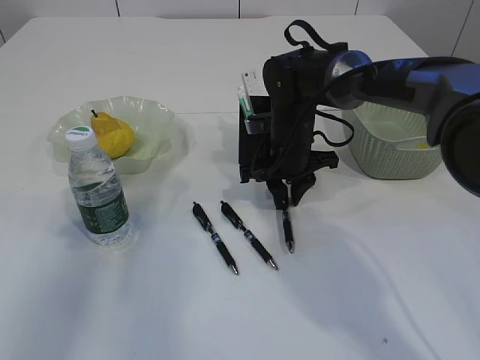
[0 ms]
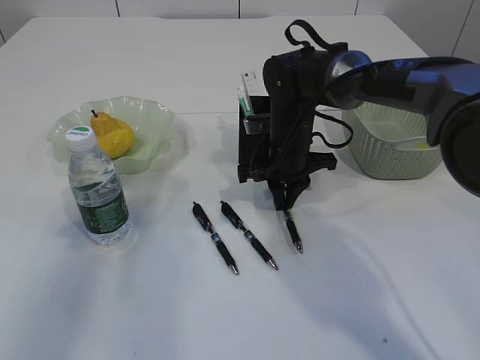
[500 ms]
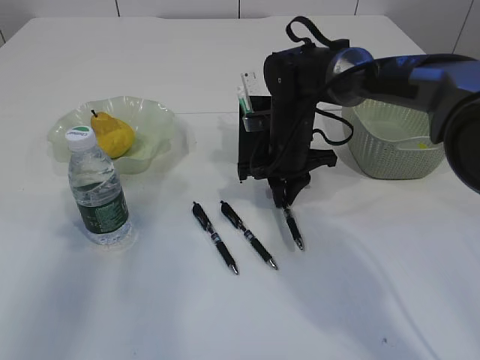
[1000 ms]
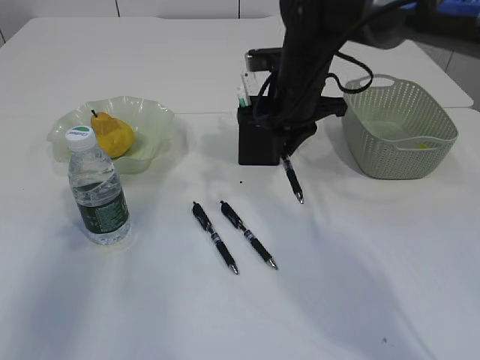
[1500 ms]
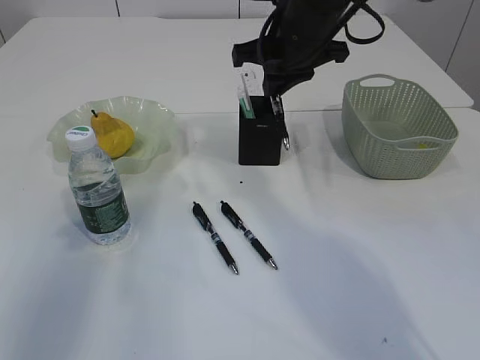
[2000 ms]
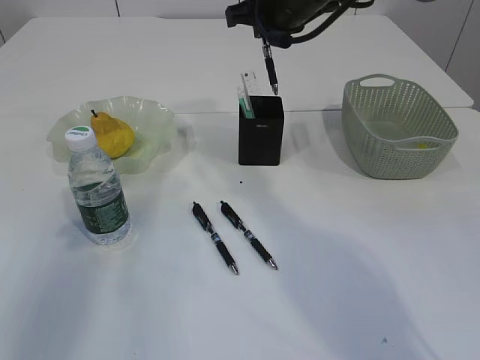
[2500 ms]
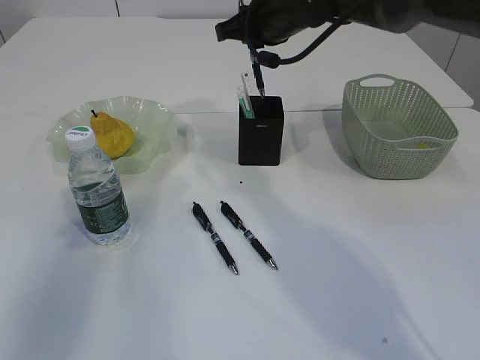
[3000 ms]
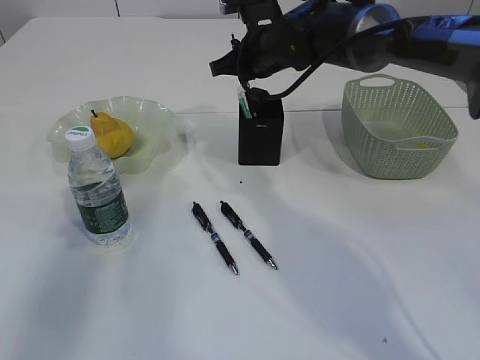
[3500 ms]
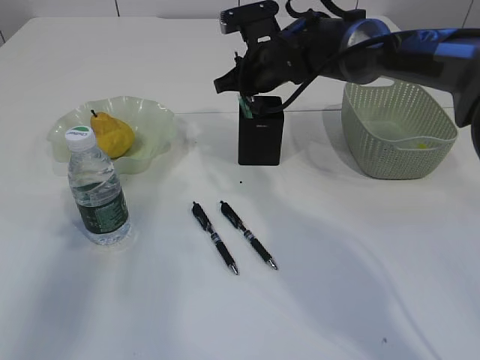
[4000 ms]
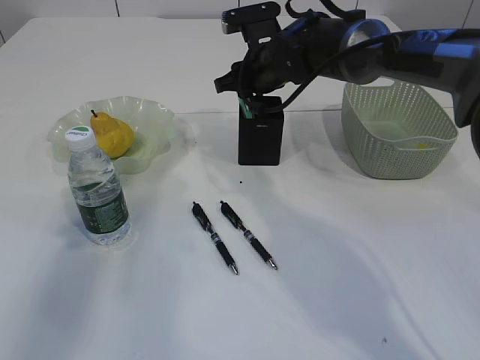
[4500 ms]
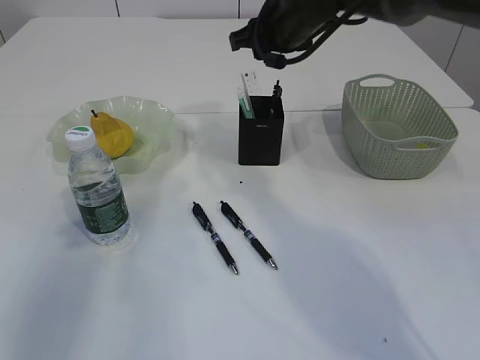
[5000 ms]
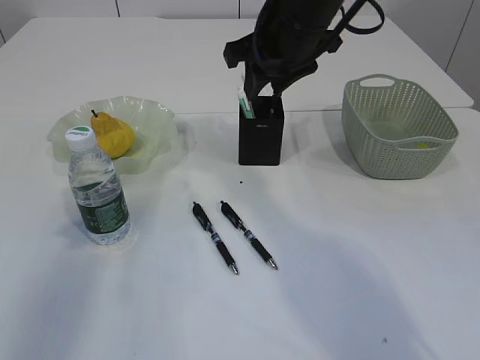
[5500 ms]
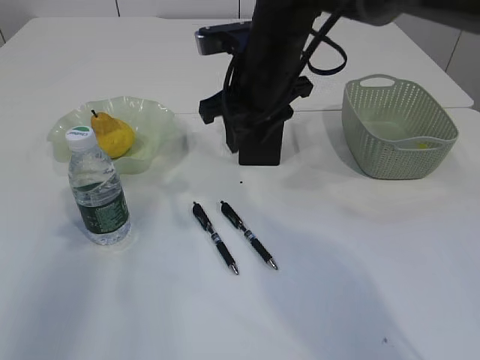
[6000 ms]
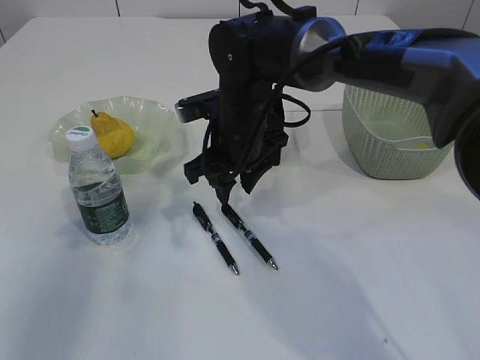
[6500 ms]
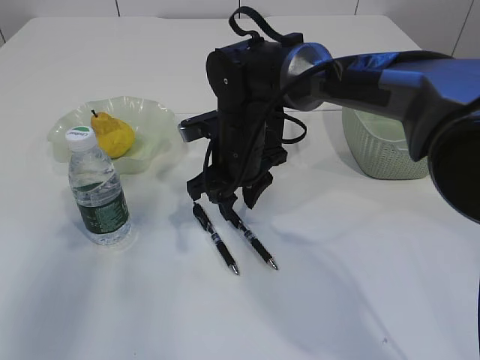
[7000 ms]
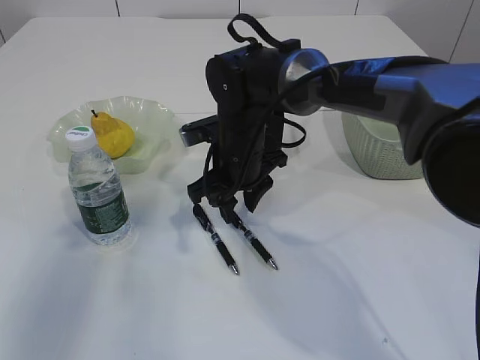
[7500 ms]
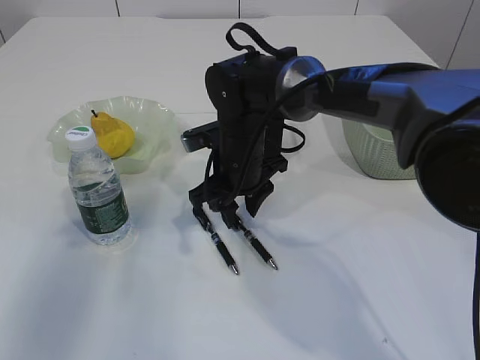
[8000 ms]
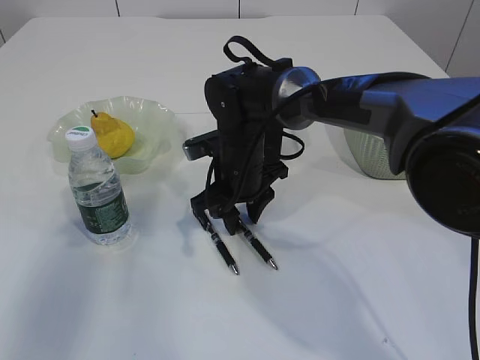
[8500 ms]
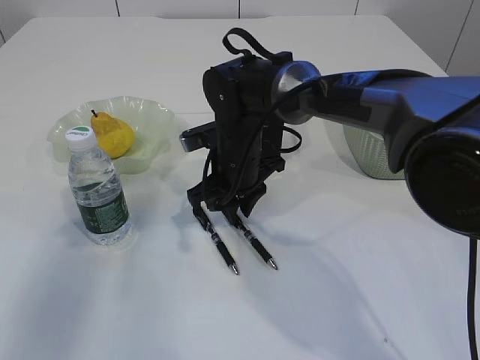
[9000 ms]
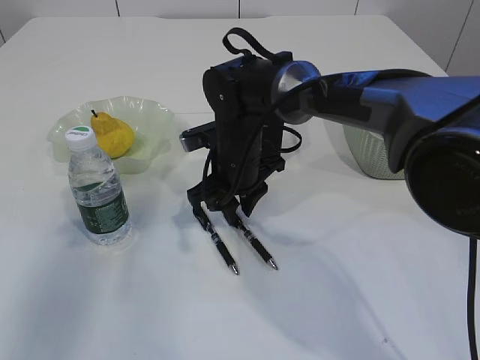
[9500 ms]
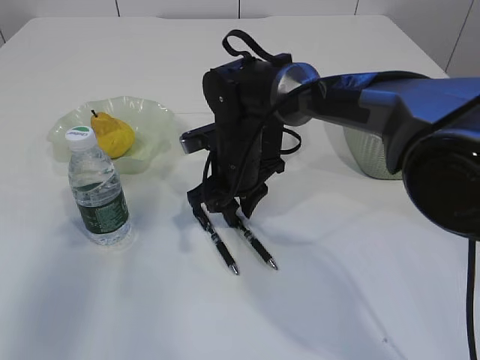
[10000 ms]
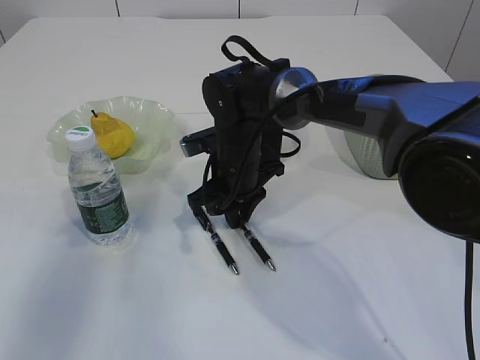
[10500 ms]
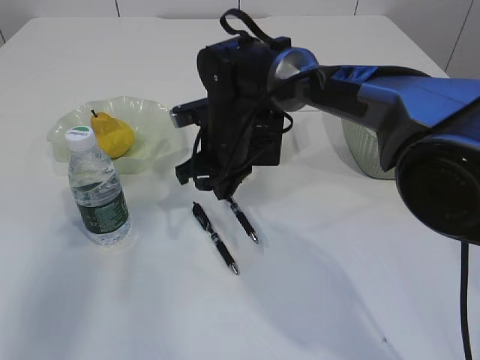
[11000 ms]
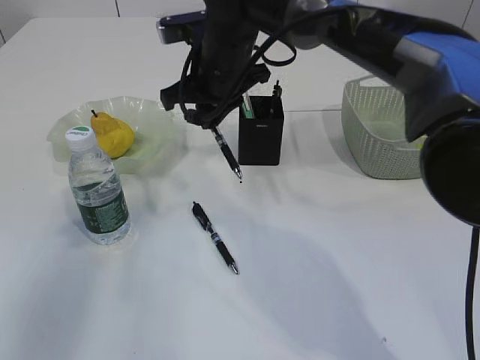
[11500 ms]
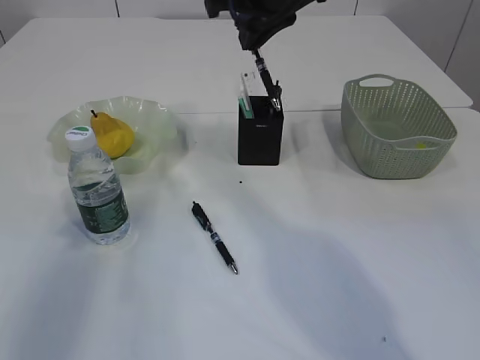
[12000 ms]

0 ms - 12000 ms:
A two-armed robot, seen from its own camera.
Step, 1500 ms - 4500 ms: Place the pen into the pen holder.
Step, 5000 ms - 11000 ms: Pick up the pen with right arm.
0 ms - 2000 ms: The right gripper shifts about 15 cm upward.
2000 ms - 4000 ms: The right gripper moves downward and forward, some 10 cm.
4000 ms - 6000 ms: The right gripper goes roughly 10 cm backward and upward, and opens up.
6000 ms - 8000 ms: The right gripper goes roughly 10 cm downward.
8000 ms - 10000 ms: Both grippers stay about where they are.
10000 ms - 12000 ms: The right gripper heads upward, covering about 20 cm.

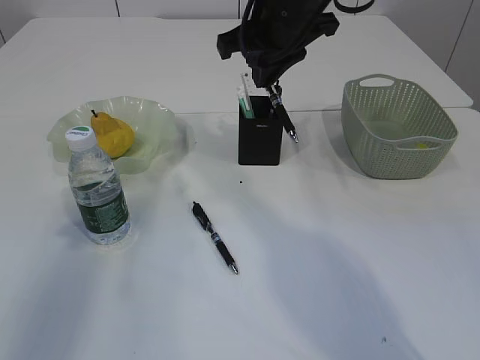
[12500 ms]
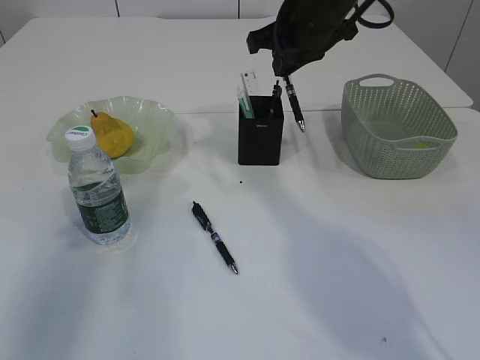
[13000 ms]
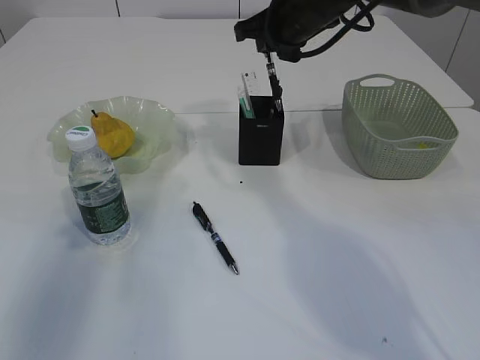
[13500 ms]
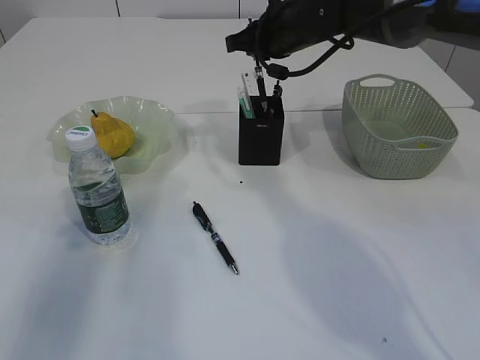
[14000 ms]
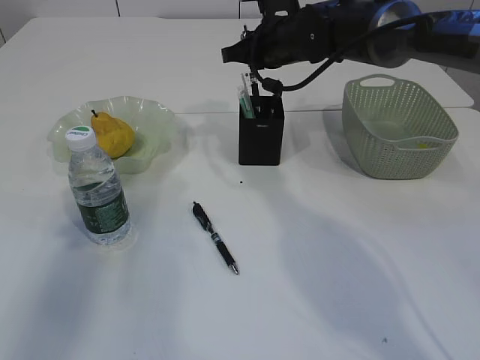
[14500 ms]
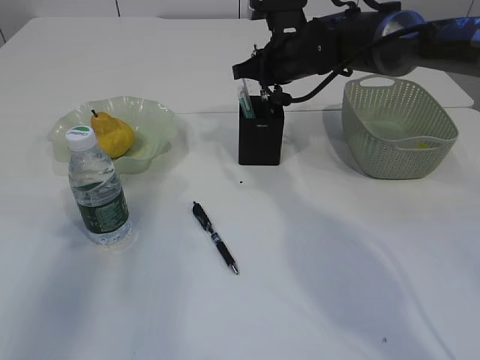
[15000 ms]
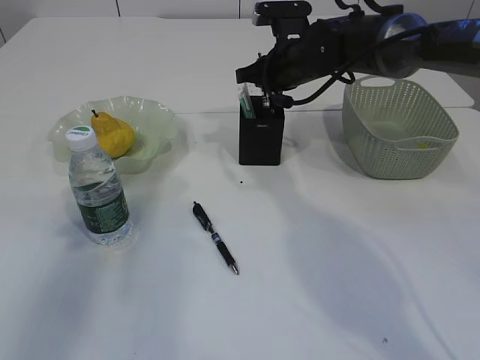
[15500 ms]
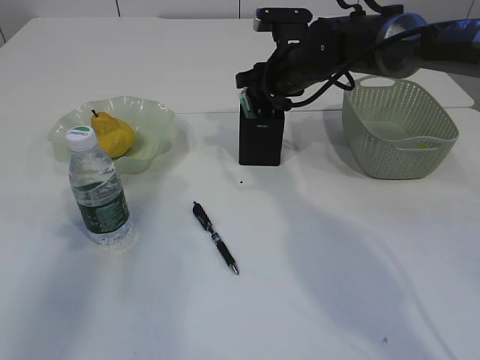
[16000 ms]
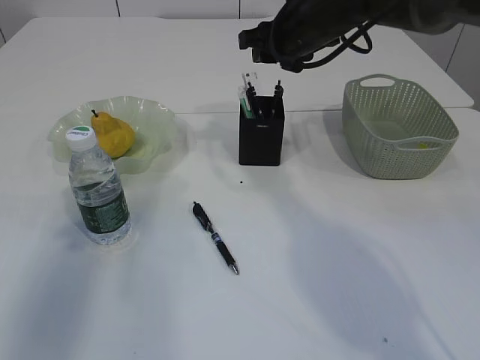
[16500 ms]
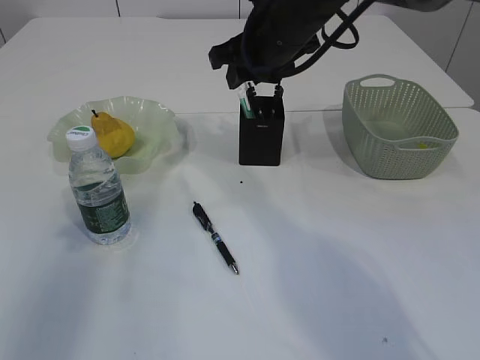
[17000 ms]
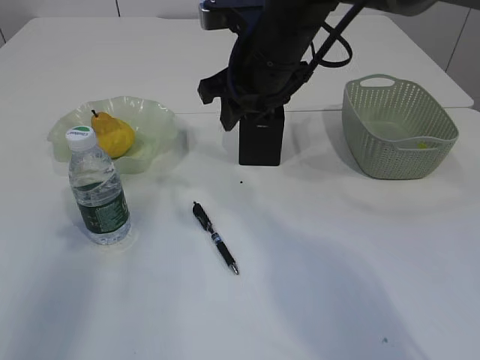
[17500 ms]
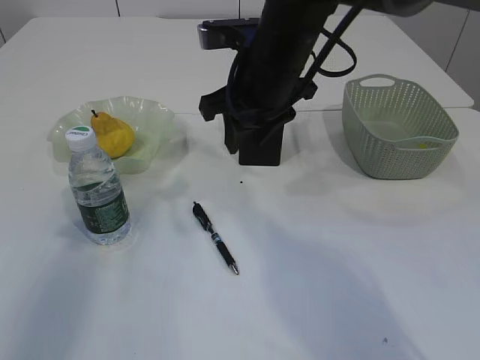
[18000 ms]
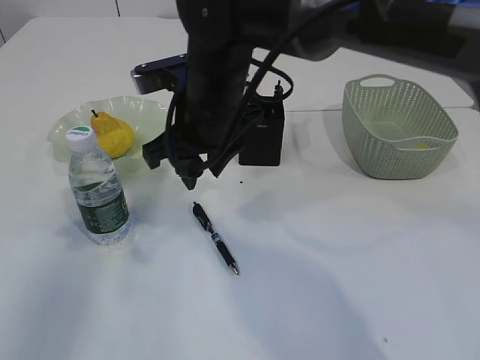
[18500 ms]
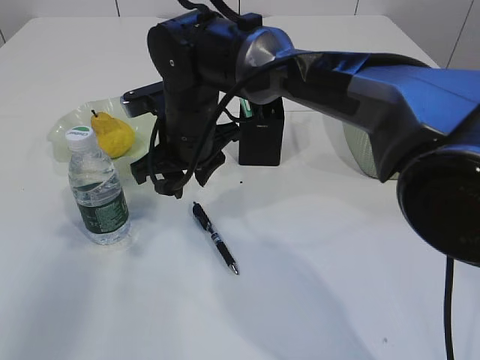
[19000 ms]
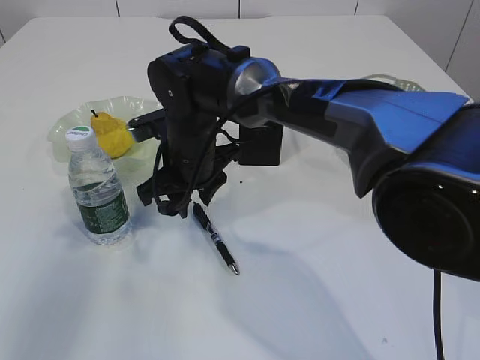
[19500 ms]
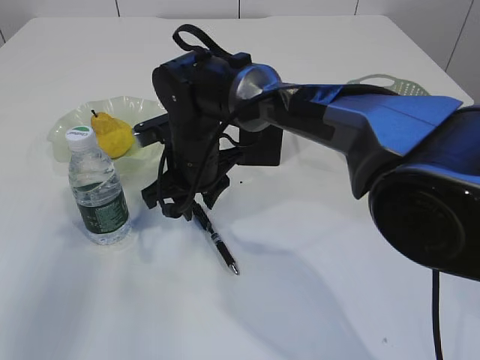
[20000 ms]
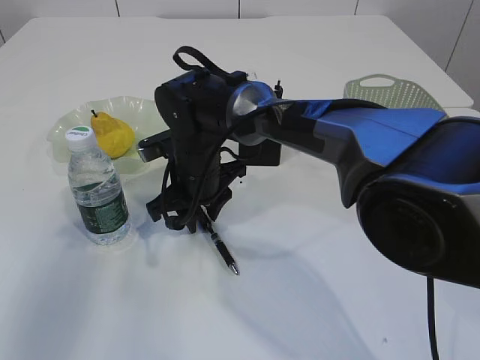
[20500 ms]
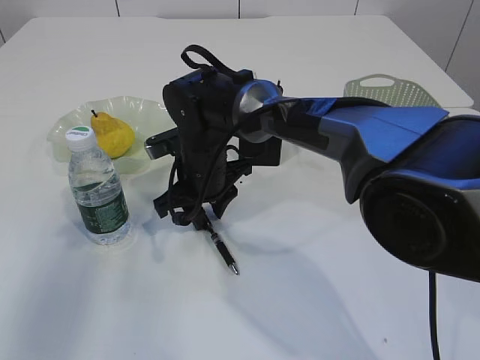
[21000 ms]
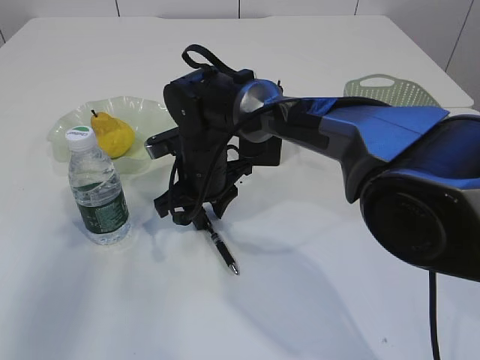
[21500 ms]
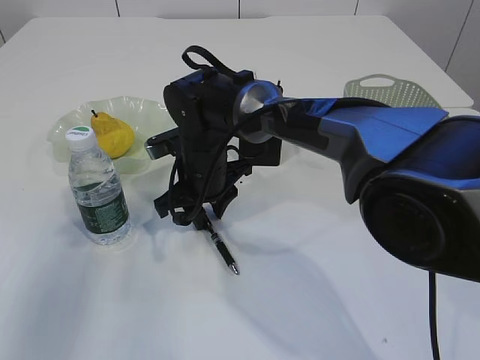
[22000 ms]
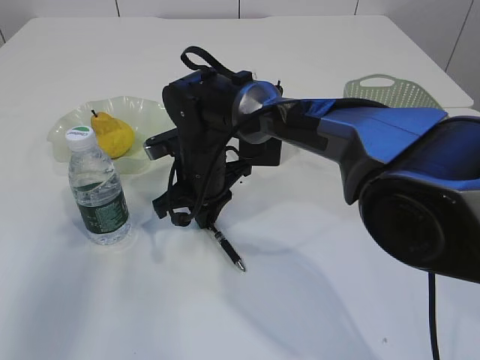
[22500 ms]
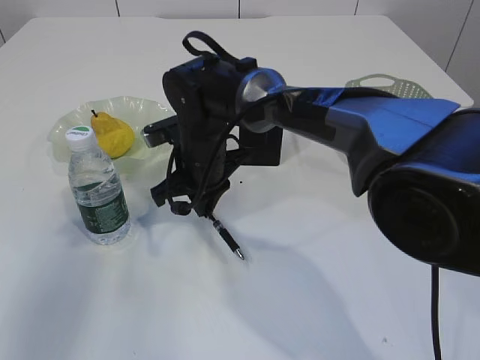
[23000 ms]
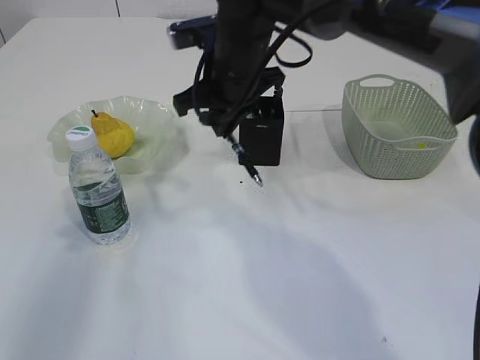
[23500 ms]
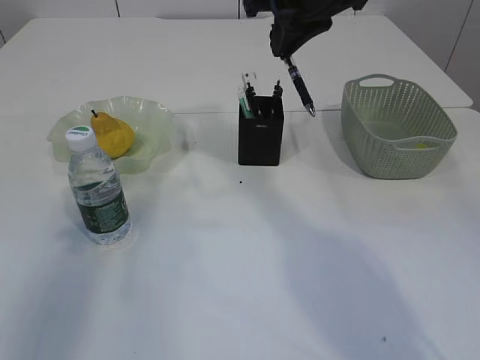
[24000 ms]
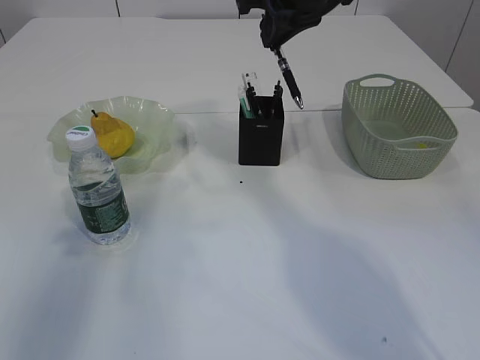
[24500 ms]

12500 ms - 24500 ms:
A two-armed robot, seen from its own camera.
Step, 12500 ms - 16500 ms: Place the pen into the pen holder.
Step, 17000 ms - 23000 ms: Pick up the pen with right arm.
12500 ms - 14500 ms: The right gripper heads forward and downward, covering some 10 cm.
14500 ms - 16500 ms: The right gripper opens.
16500 ms - 18500 ms: The right gripper is displaced backward and to the left by roughly 15 cm.
18500 ms - 20500 ms: The right gripper goes about 10 cm downward.
20500 ms - 22500 ms: Both grippers stay about where they are.
22500 ms - 24500 ms: The right gripper moves upward and to the right, some 25 cm.

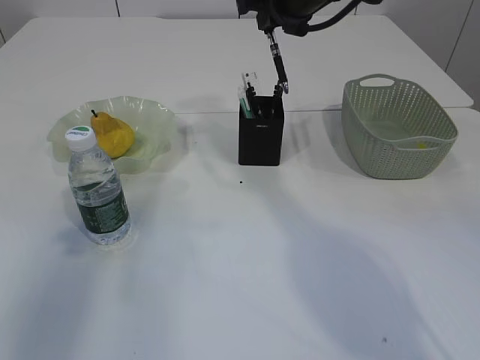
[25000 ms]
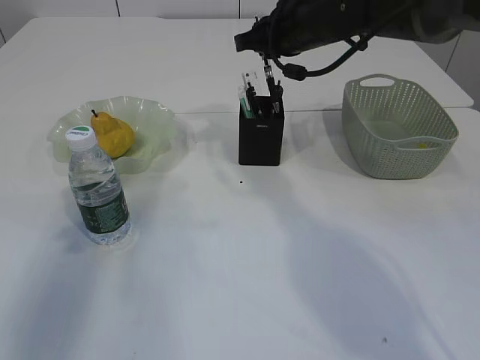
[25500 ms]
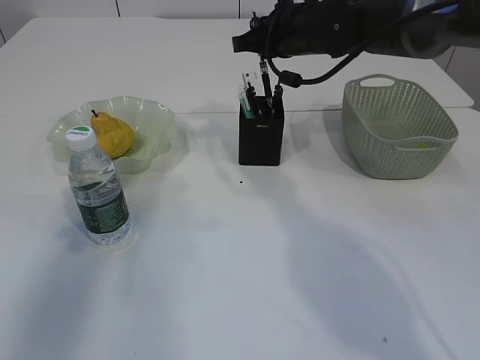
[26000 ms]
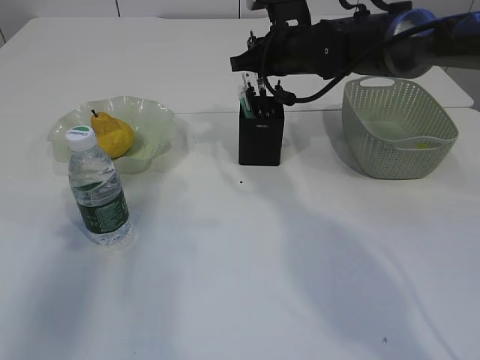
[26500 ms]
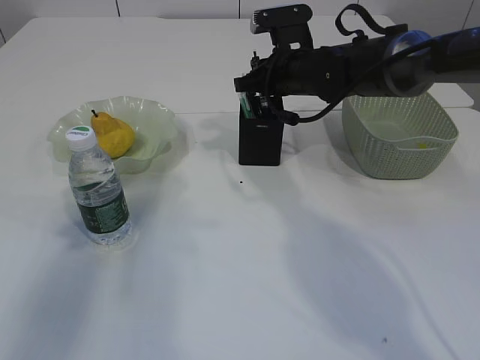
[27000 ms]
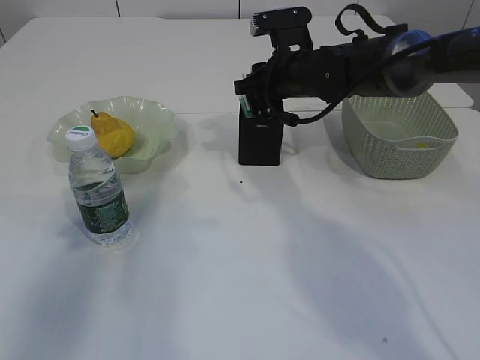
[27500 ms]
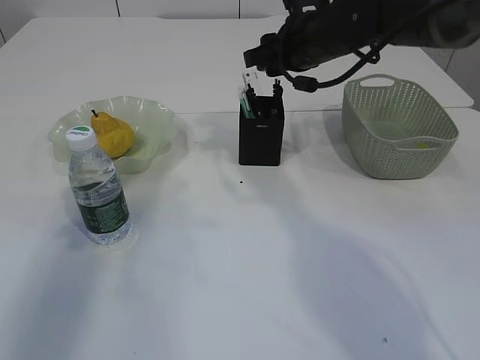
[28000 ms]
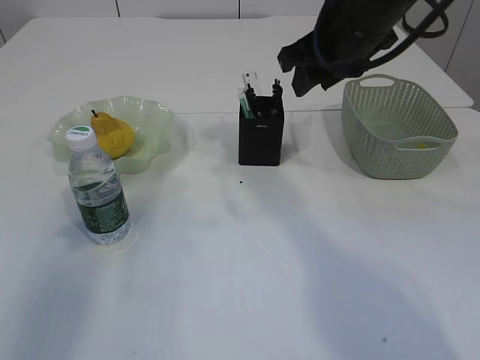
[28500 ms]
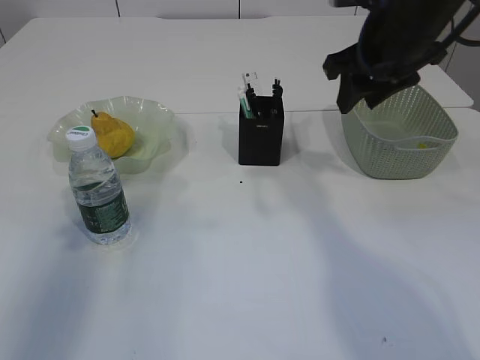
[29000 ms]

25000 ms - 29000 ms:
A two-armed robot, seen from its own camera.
Step, 25000 ms - 28000 ms: Place the pen into the pen holder.
25000 ms - 27000 ms: The right gripper shifts about 10 cm downward.
27000 ms - 29000 ms: The right gripper is displaced upward, backward and to the right by about 15 cm, and opens up.
